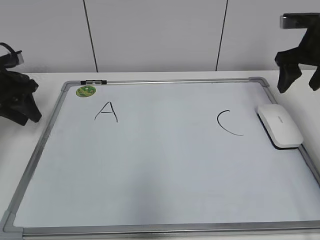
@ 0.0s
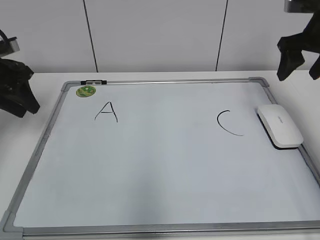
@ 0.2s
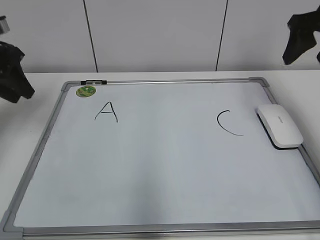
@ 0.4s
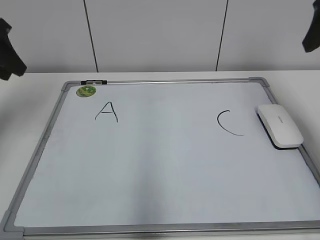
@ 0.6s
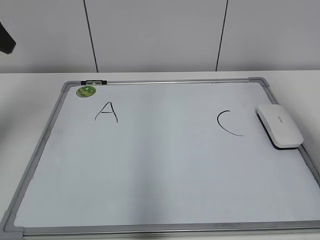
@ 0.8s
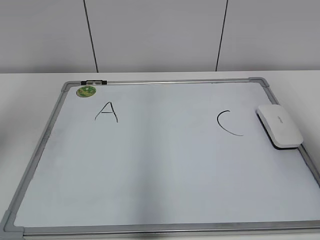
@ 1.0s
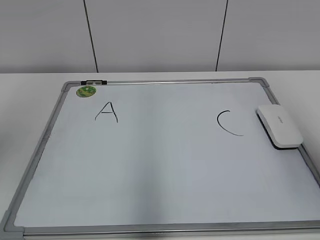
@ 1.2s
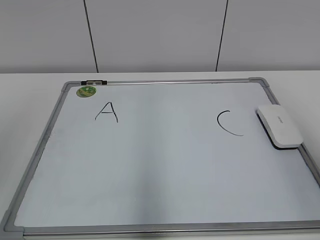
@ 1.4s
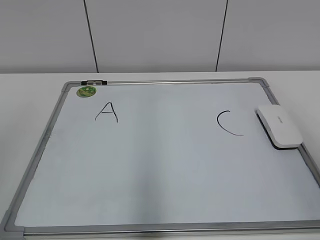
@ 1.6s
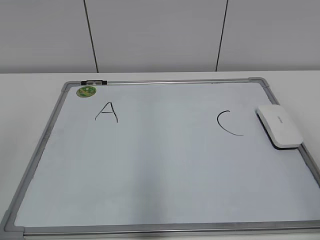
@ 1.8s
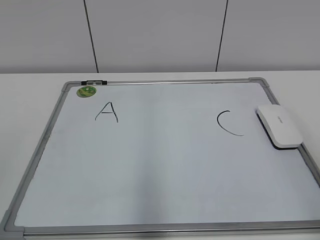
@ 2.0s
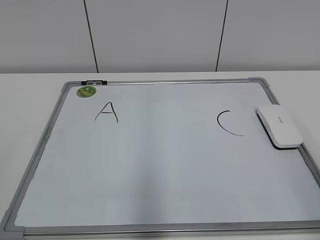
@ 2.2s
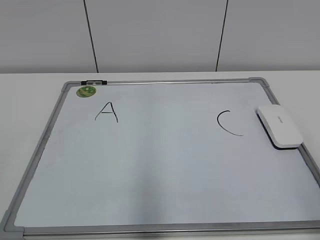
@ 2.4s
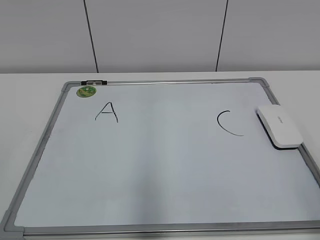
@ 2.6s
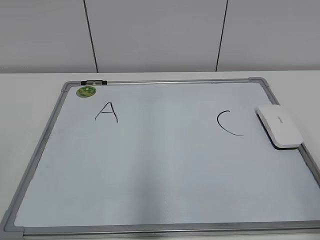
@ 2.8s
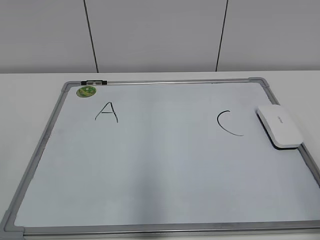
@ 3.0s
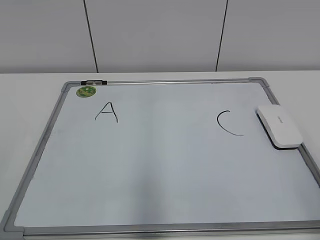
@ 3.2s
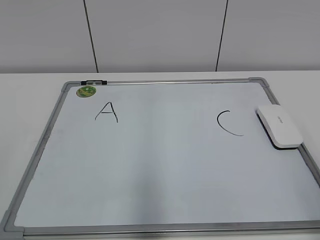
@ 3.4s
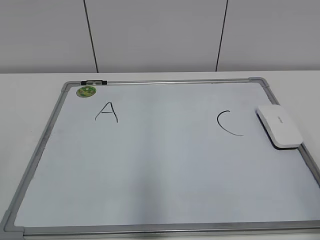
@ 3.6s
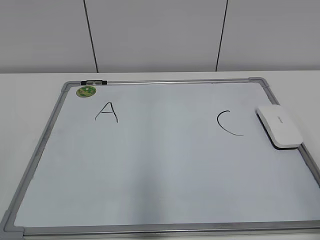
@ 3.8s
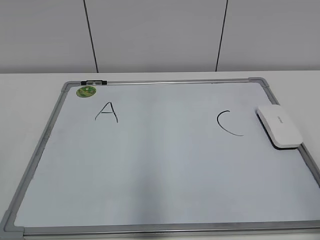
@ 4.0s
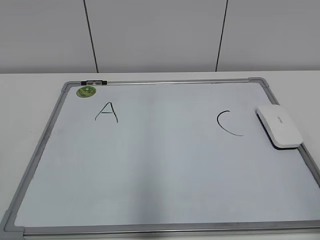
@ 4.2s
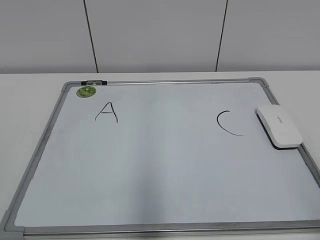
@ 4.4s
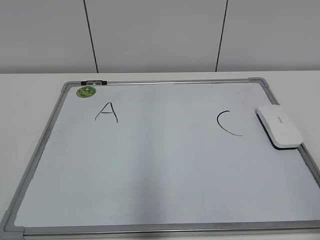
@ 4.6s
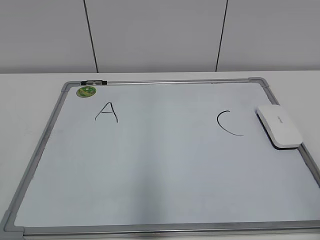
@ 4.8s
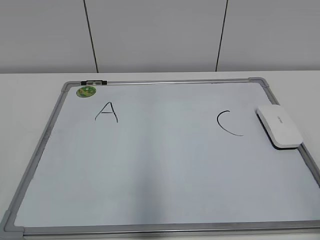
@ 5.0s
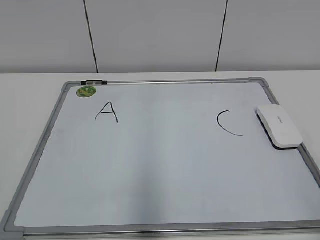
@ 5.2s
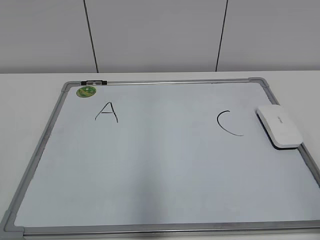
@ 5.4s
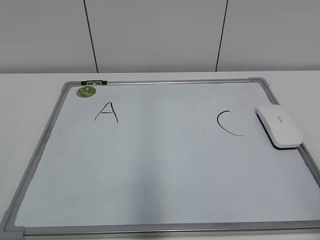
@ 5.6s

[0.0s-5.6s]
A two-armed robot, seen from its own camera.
Task of the whole recording: pick up the eraser on the blackboard and erase the letter "B".
0.0s to 1.4s: The two grippers go roughly 35 cm backward and upward.
